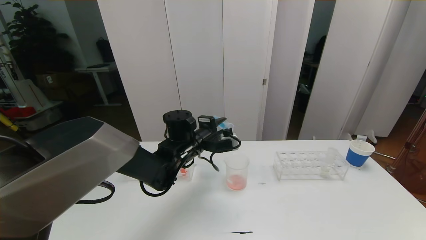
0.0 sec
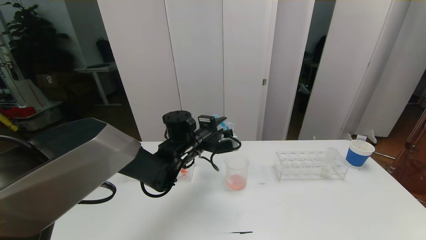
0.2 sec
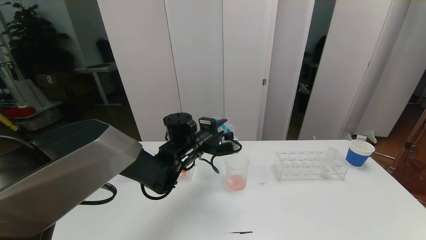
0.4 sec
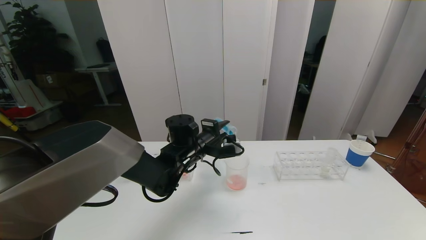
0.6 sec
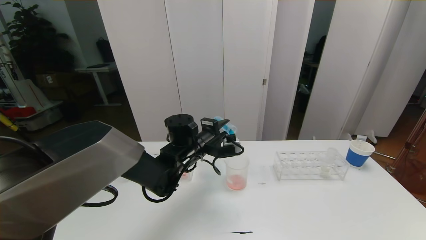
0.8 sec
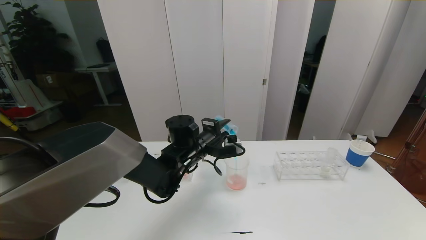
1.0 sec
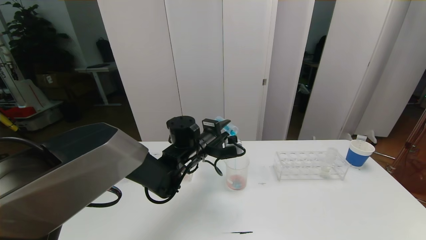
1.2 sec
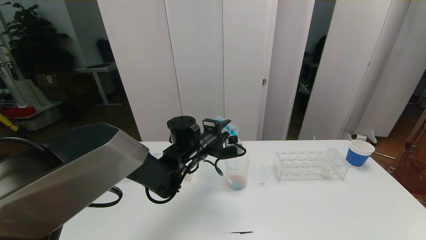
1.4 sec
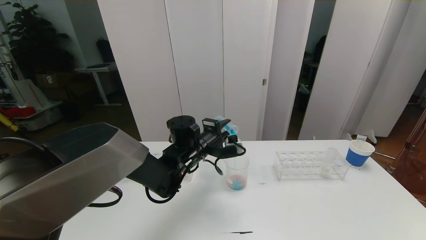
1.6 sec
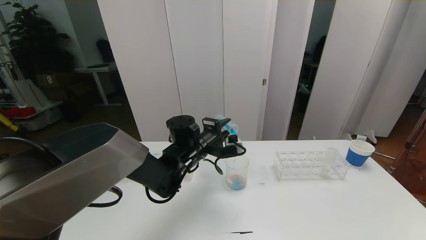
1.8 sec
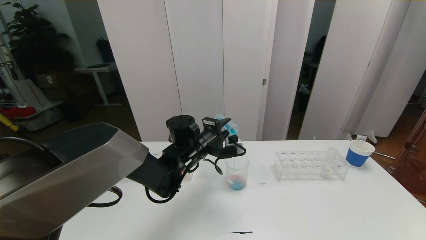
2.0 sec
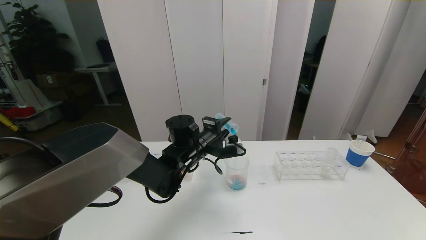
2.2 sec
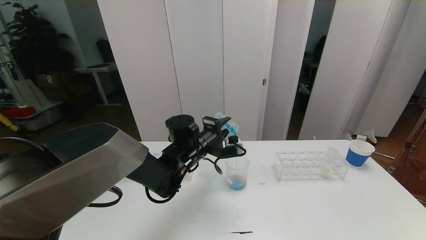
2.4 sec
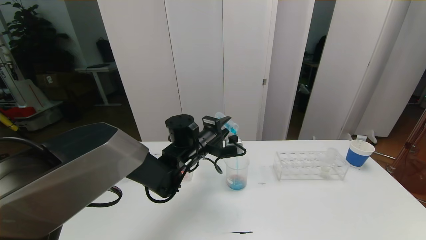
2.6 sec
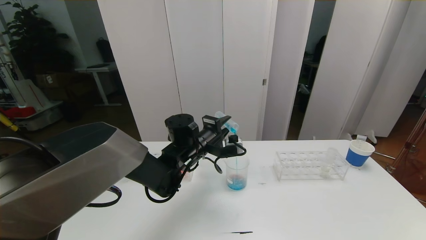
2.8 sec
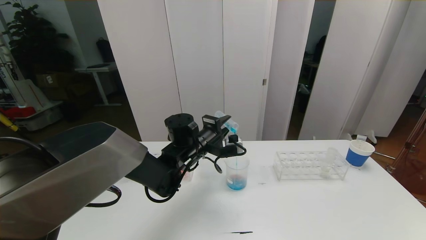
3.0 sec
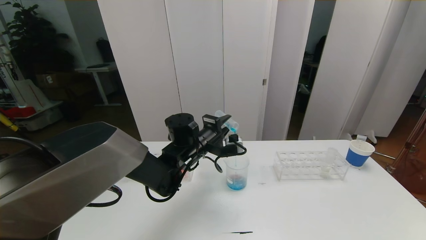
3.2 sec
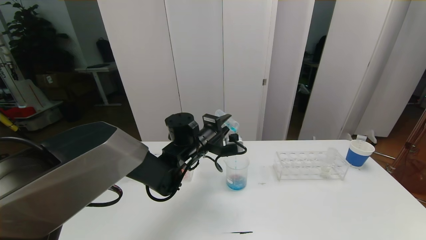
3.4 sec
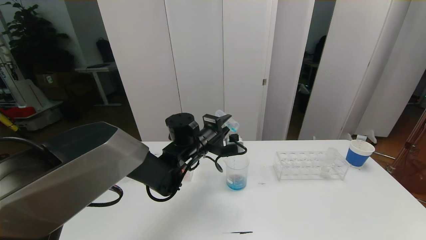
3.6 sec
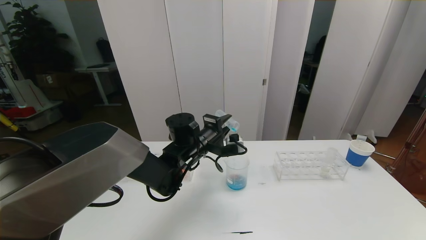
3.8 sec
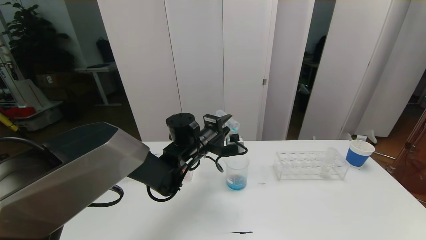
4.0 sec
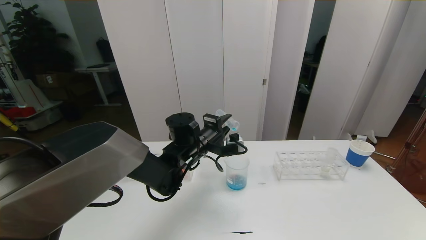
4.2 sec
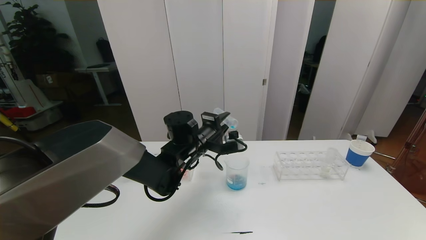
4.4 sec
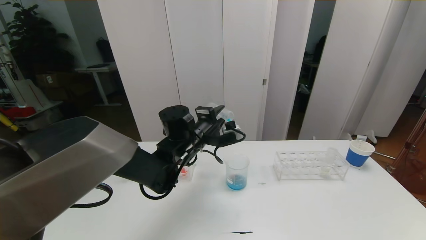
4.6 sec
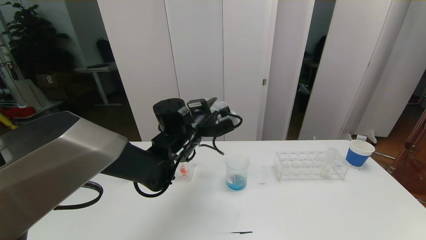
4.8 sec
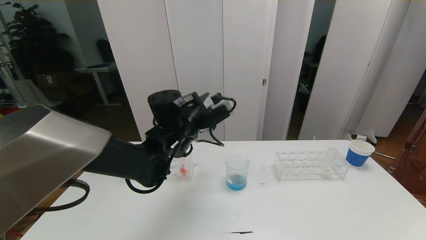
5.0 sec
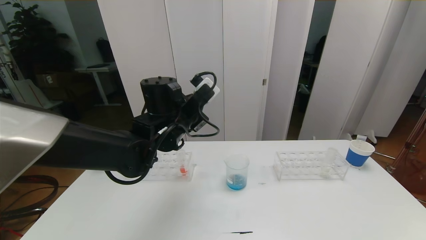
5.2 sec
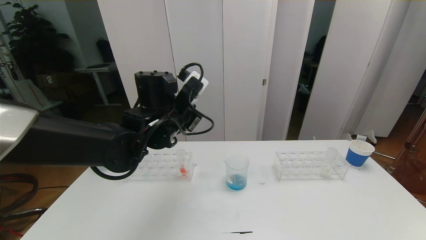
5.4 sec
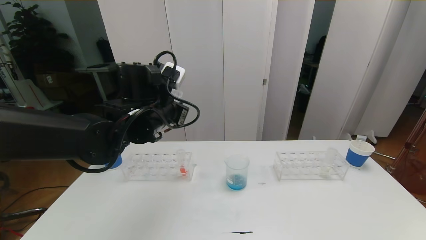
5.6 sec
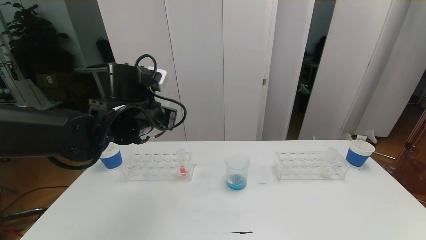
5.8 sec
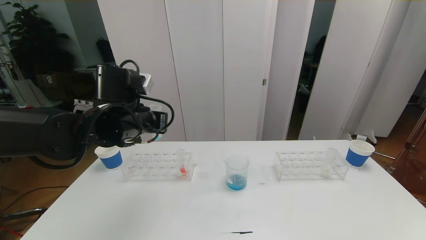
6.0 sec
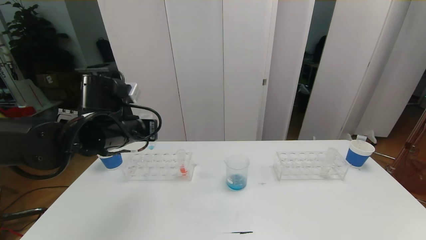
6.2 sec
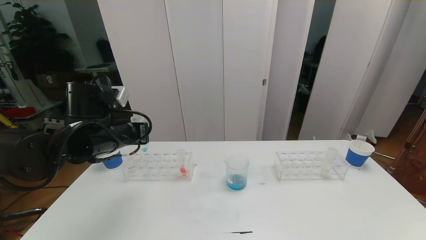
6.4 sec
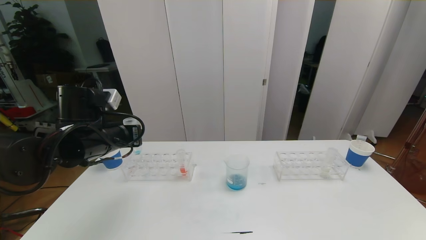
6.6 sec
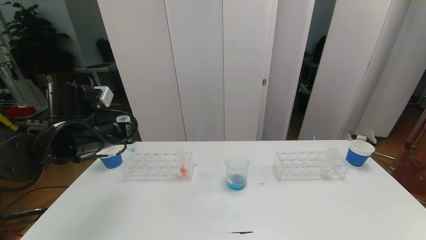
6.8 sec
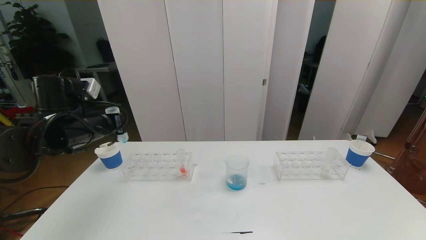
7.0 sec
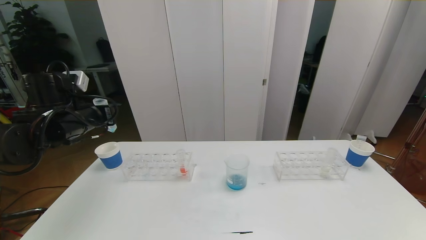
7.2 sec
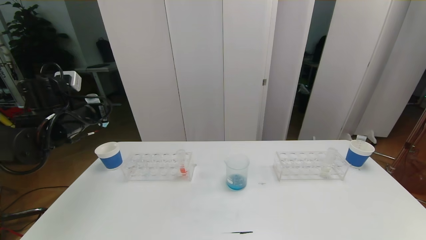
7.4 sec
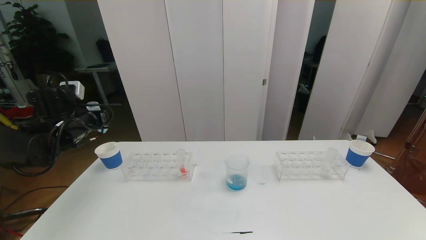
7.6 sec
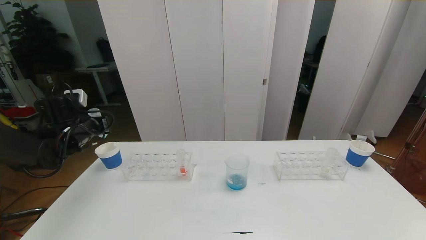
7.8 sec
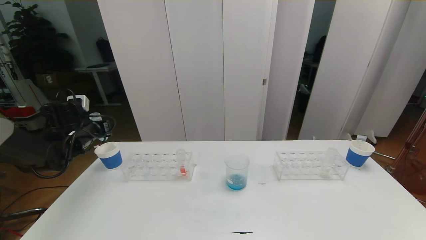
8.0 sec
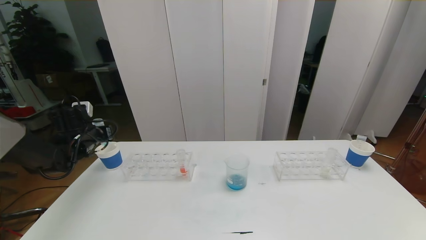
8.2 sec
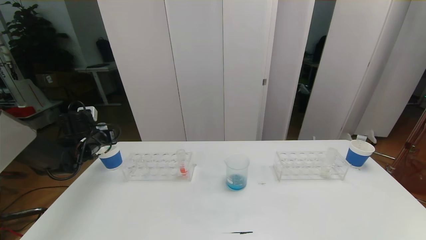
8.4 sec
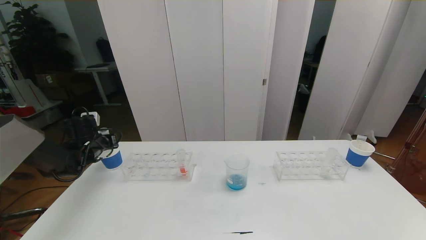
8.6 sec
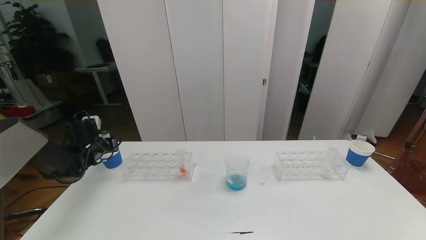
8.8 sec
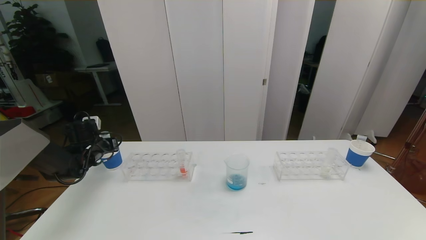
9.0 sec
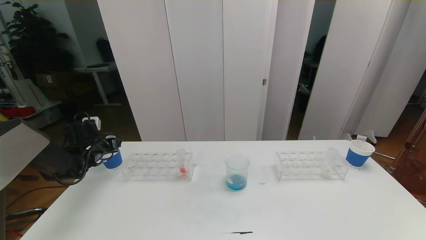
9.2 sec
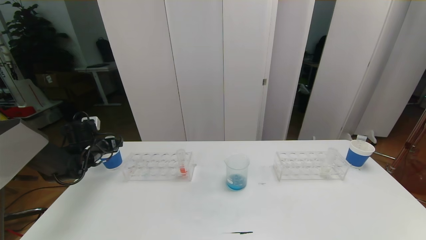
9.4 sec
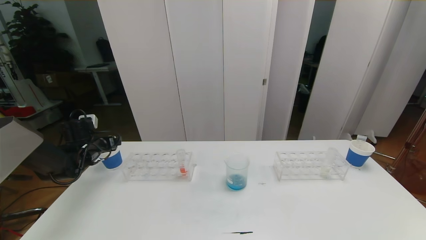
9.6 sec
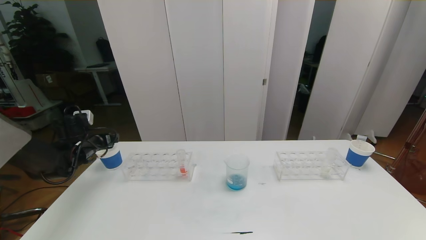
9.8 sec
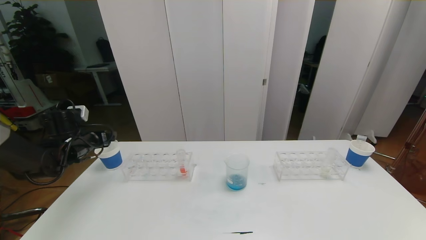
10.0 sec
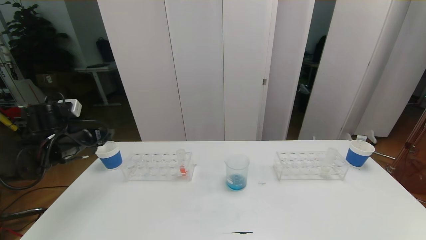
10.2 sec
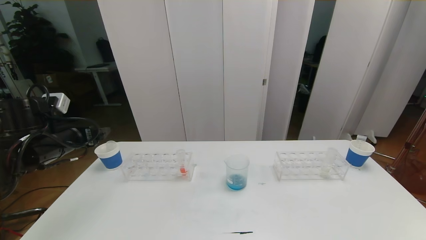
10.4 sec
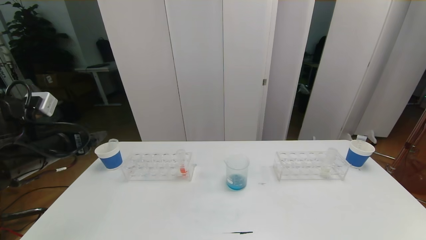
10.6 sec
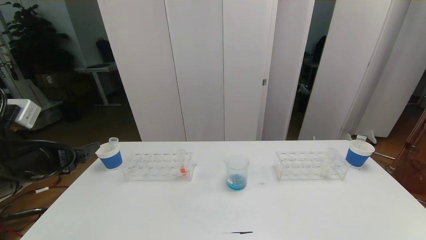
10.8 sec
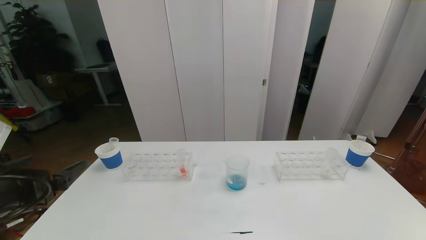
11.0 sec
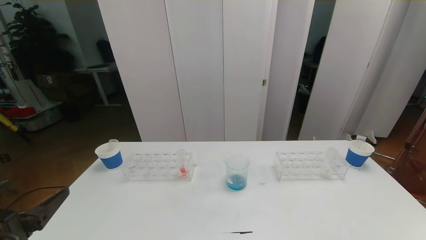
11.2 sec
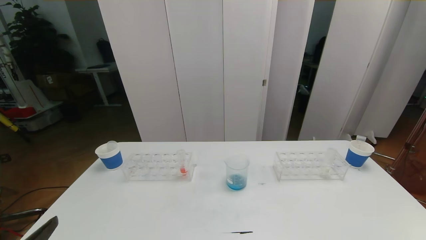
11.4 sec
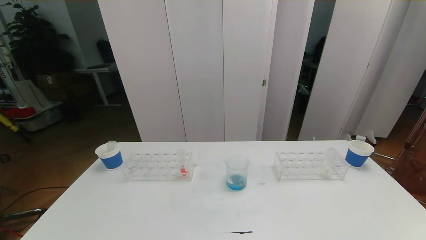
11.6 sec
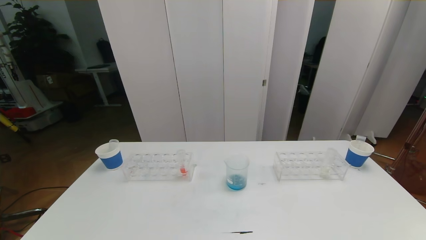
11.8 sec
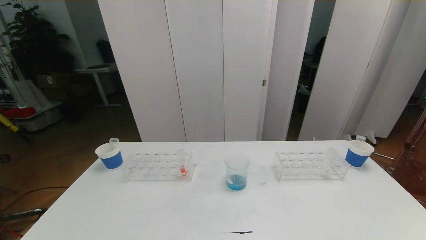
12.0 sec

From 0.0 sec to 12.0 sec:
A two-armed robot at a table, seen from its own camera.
Task of the whole recording: pick up the test tube with red pigment the test tube with blue pigment and the test tube with white pigment by grippers and pour them into the beaker.
Step, from 0.0 sec to 11.8 sec: Pour the blue reagent into the graduated cylinder and place the test tube into the paper cup.
From 0.0 sec to 1.6 sec: There are only small adjustments of the grippers.
From 1.6 sec to 3.0 sec: Both grippers stay about where they are.
From 3.0 sec to 4.4 sec: The two grippers keep their place.
From 4.4 sec to 6.0 sec: The left gripper shifts about 15 cm to the left, upward and backward.
From 6.0 sec to 7.6 sec: The left gripper shifts some 15 cm to the left.
From 7.6 sec to 9.0 sec: The left gripper shifts approximately 10 cm downward and forward.
From 9.0 sec to 10.4 sec: The left gripper goes about 20 cm backward, upward and to the right, and opens its fingers.
From 10.4 sec to 12.0 sec: The left gripper is displaced backward by about 30 cm.

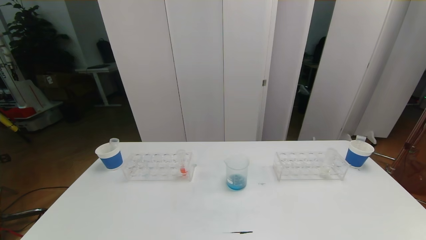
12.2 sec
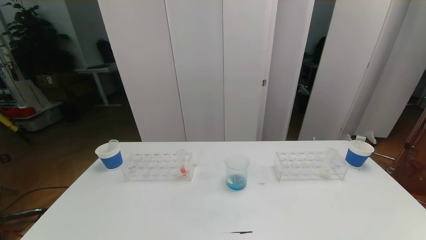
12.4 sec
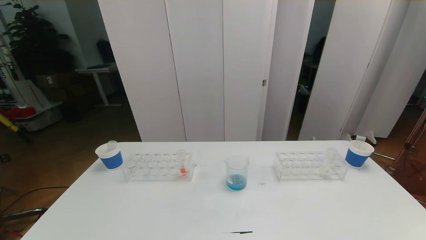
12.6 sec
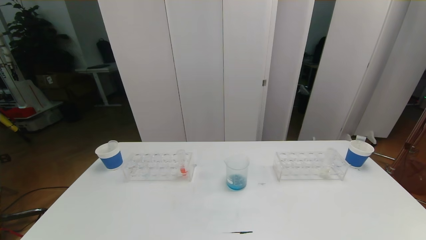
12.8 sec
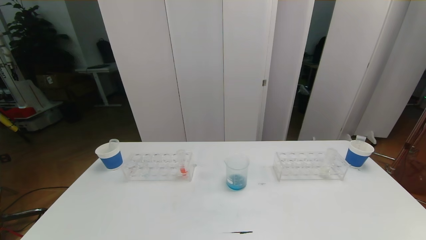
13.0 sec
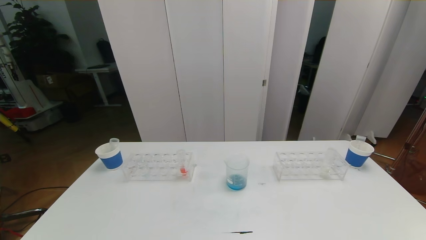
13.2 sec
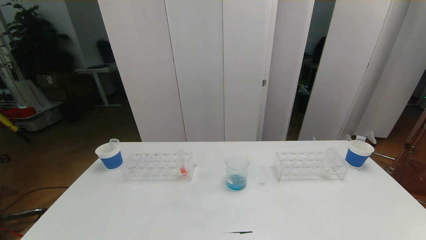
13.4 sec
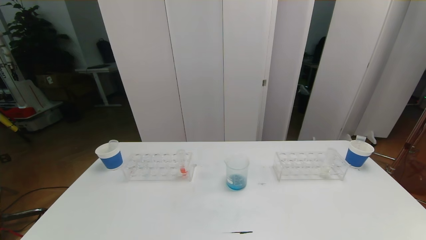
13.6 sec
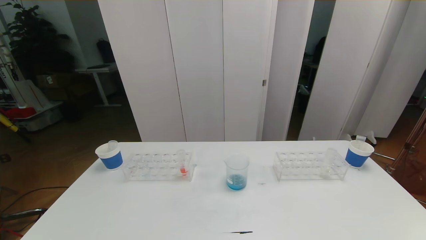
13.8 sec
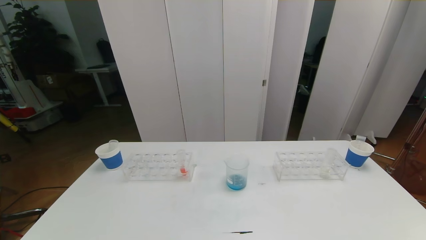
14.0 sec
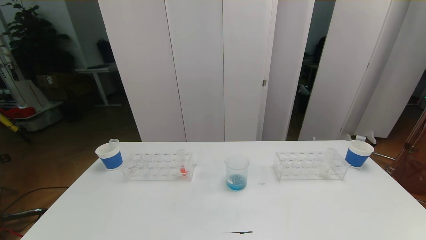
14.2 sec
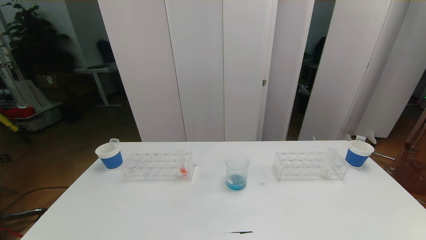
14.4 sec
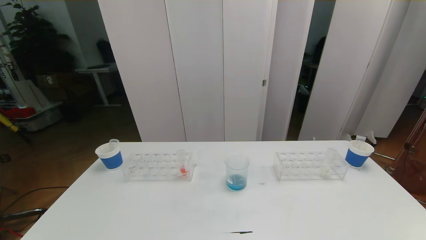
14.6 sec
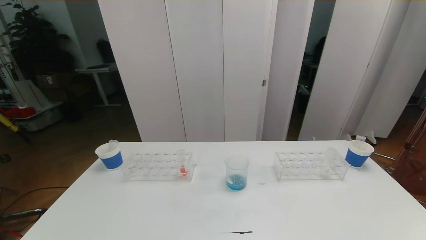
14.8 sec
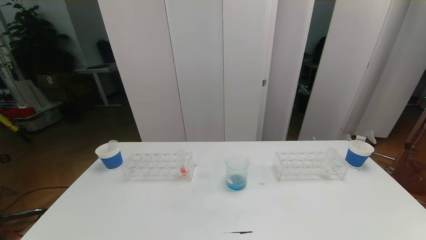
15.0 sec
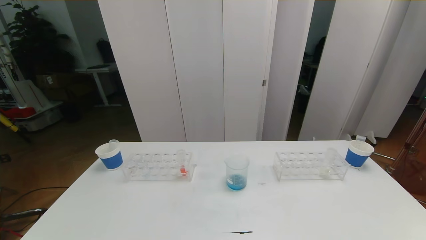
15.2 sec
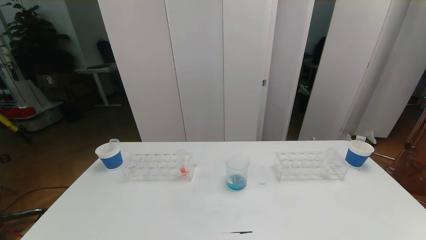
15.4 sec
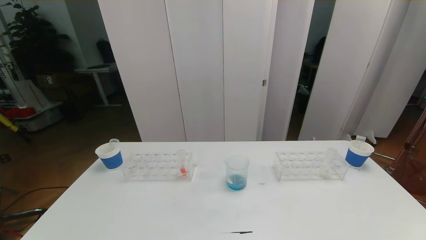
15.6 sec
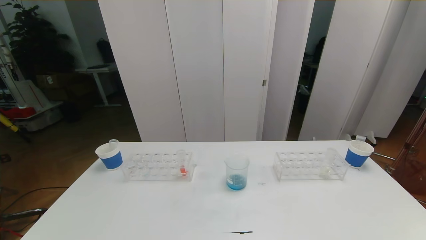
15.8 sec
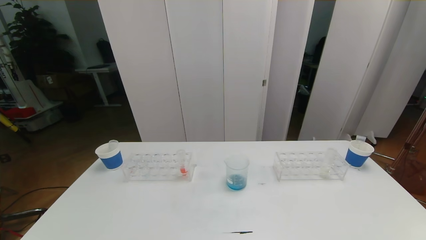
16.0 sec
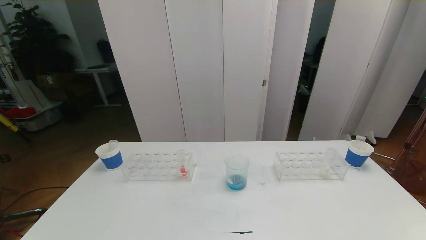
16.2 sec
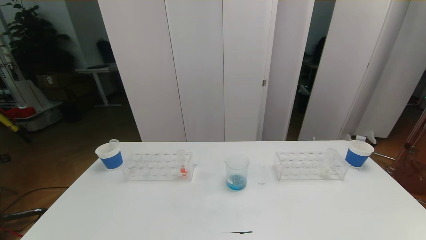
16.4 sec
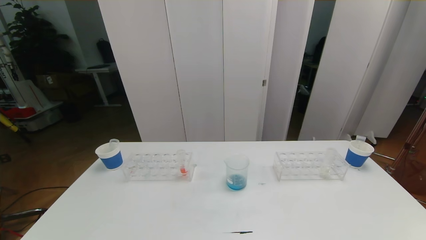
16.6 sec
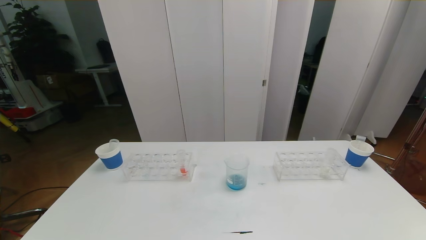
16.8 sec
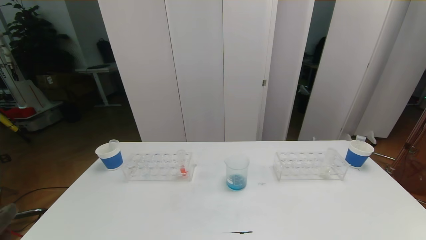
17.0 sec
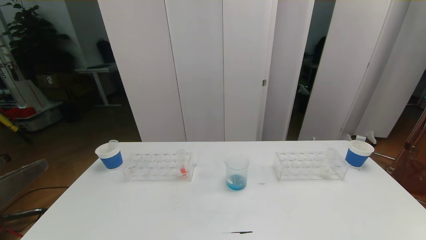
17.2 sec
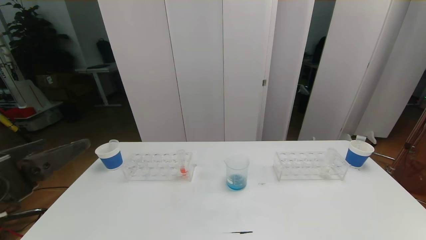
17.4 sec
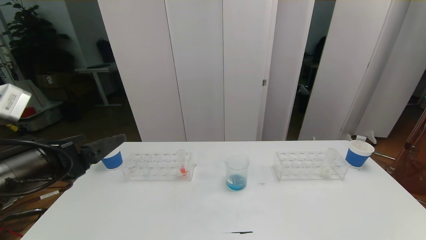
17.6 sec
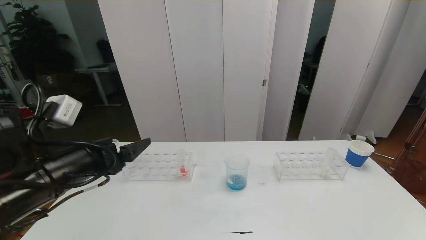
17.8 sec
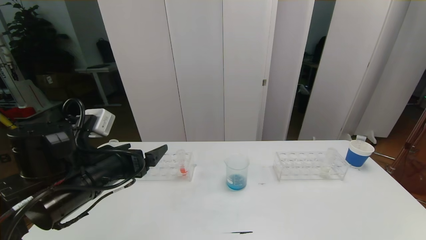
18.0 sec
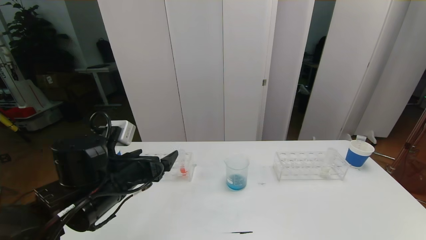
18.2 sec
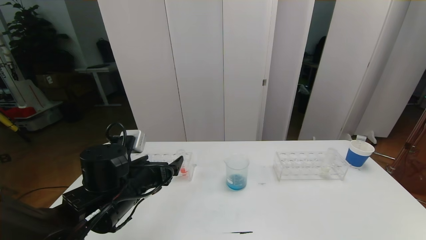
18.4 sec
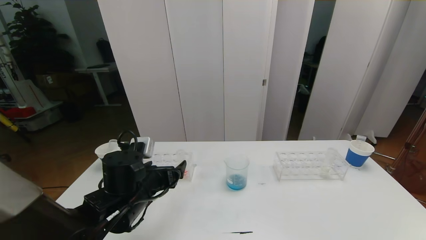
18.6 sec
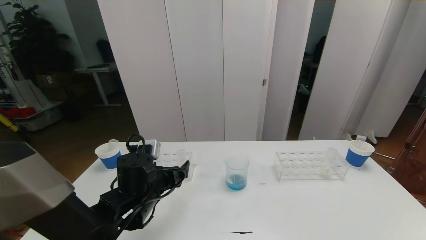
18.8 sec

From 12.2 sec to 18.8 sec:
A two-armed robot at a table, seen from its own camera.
Task of the whole recording: pick up the test tube with red pigment the test tube with blue pigment and the test tube with white pigment by grippers and pour them into the beaker.
From 13.8 sec to 15.4 sec: The two grippers keep their place.
From 17.2 sec to 18.8 sec: The left gripper shifts approximately 30 cm forward, downward and to the right.
